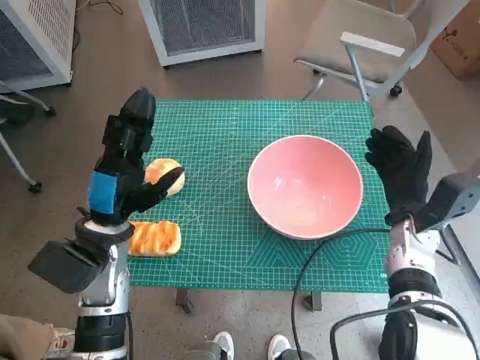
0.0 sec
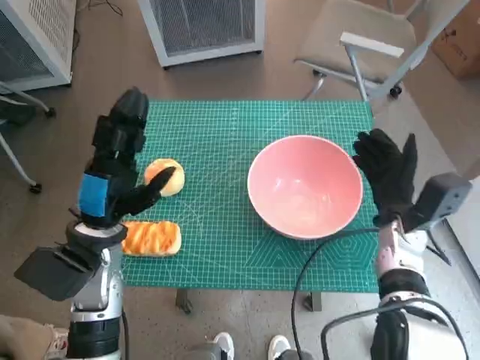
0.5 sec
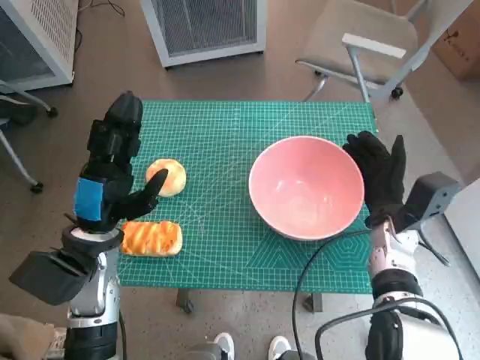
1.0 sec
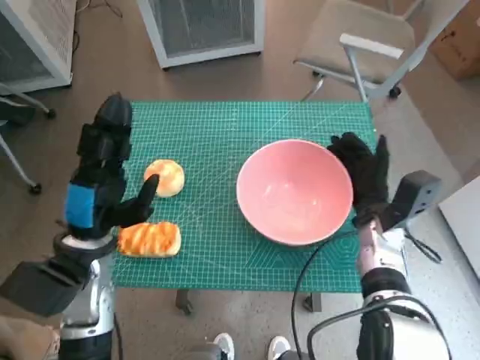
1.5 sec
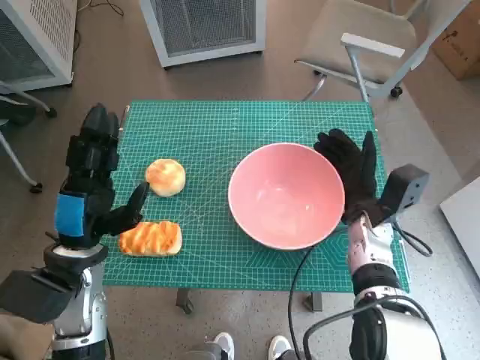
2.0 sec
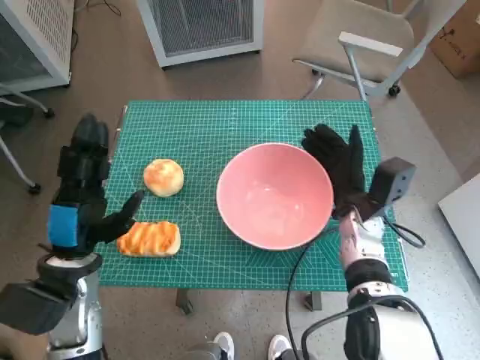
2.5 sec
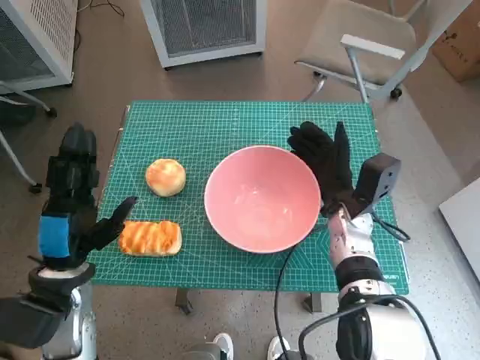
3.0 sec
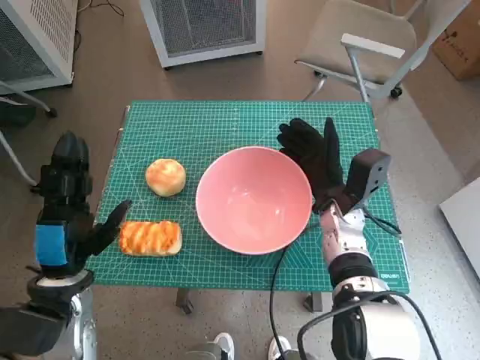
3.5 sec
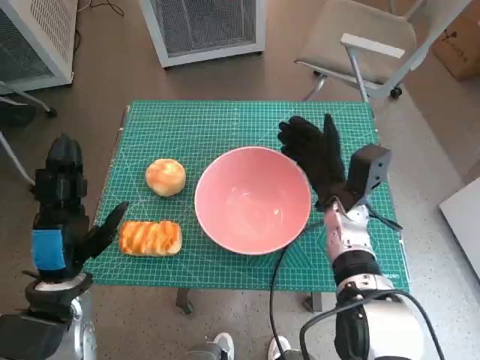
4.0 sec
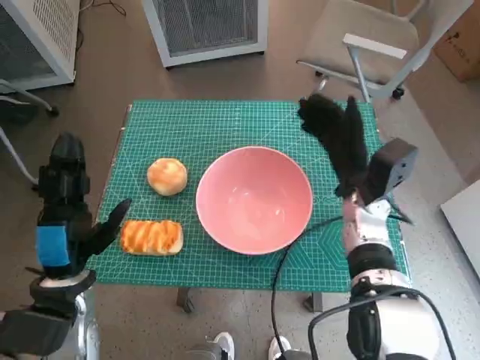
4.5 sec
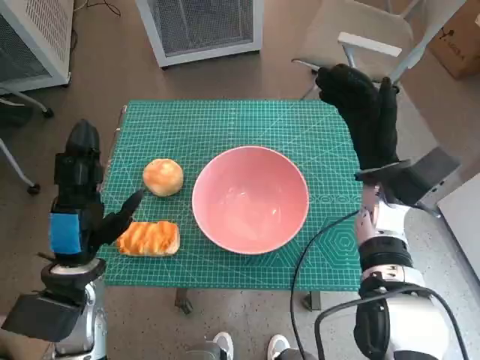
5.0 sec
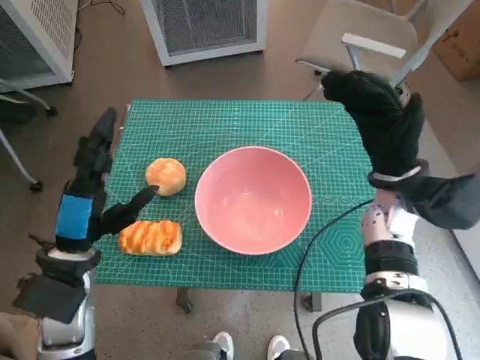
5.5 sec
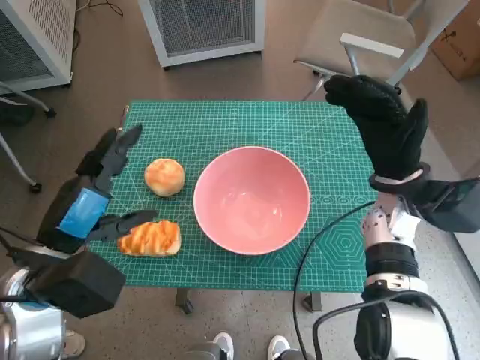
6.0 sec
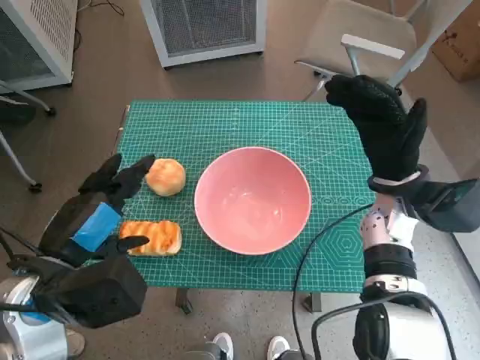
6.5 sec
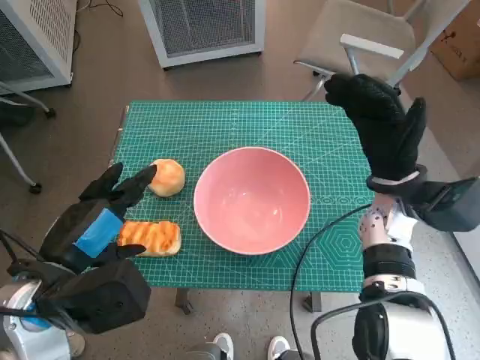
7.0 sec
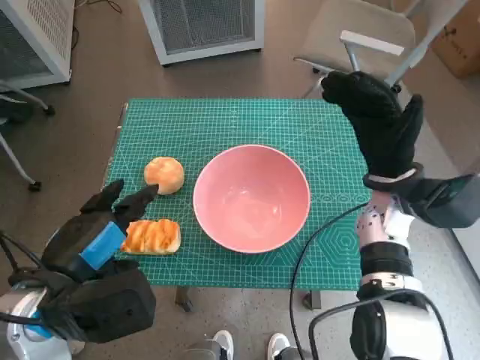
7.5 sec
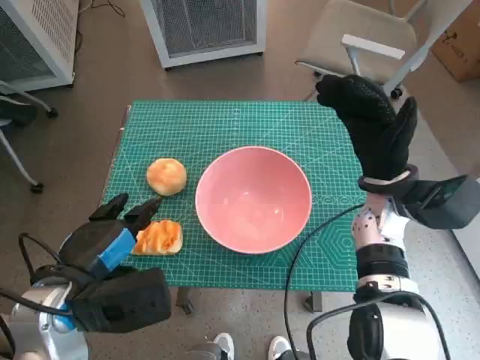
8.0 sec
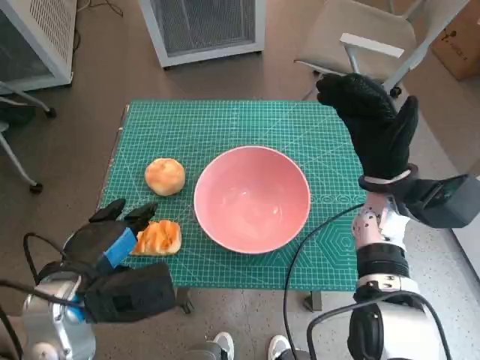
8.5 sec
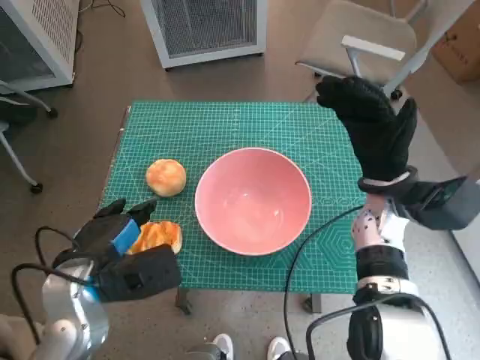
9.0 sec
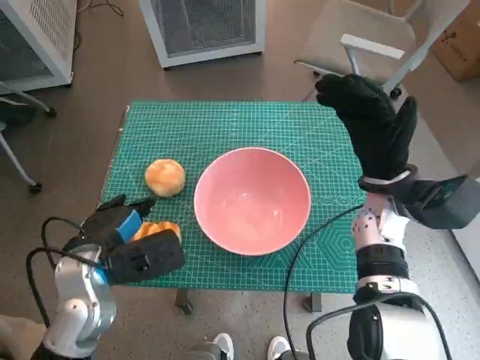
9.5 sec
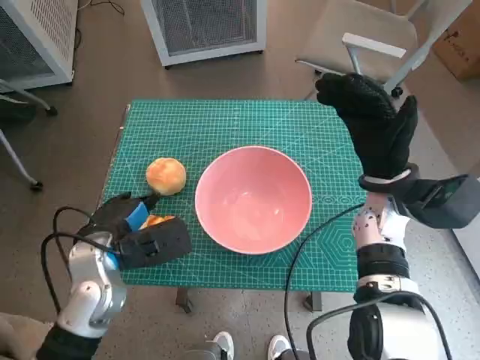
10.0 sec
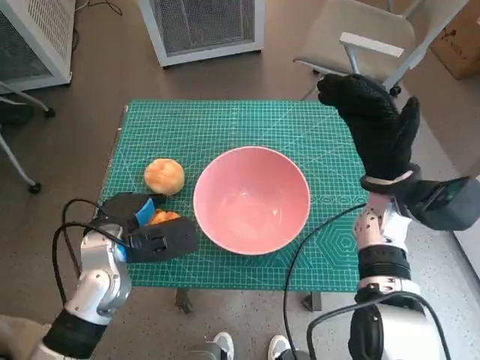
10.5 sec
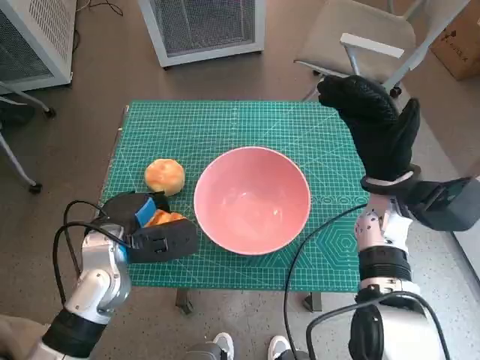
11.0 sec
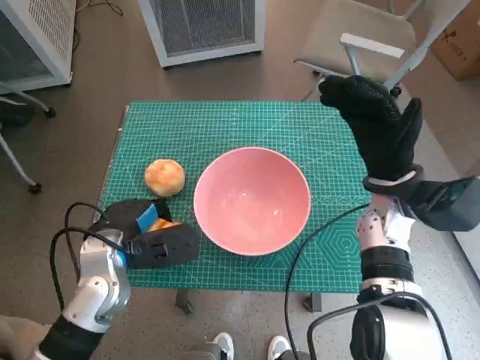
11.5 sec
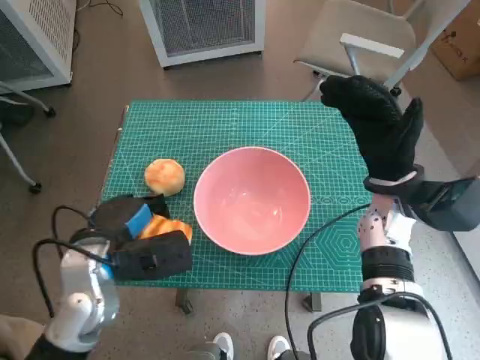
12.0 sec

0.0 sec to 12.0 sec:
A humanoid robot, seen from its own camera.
Step, 0.0 sec to 4.0 sec: Move the pink bowl to the center of table with right hand.
Step, 4.5 sec to 10.5 sec: Grasp the long bread with left hand.
0.0 sec to 2.0 sec: The right hand goes some 5 cm to the left.
2.0 sec to 4.0 sec: The right hand moves approximately 5 cm.
4.0 sec to 6.0 sec: The right hand shifts some 10 cm to the right and upward, while the left hand heads upward, covering some 5 cm.
8.0 sec to 10.0 sec: The left hand goes approximately 10 cm forward and downward.
10.0 sec to 12.0 sec: The hands make only small movements.

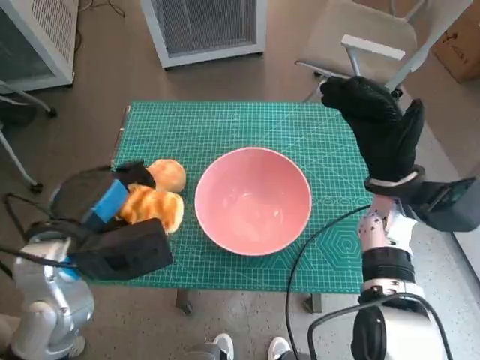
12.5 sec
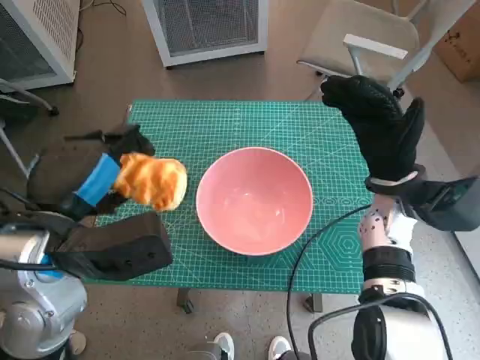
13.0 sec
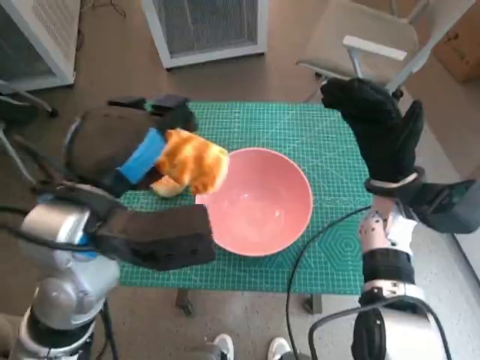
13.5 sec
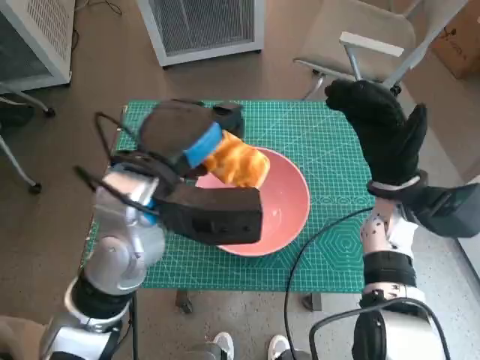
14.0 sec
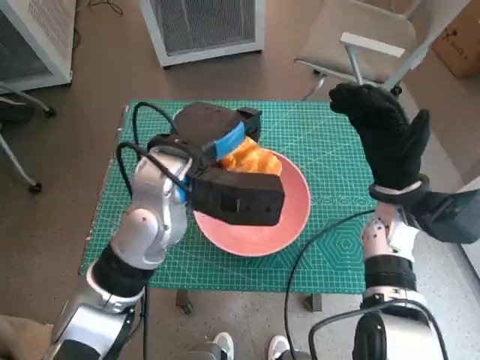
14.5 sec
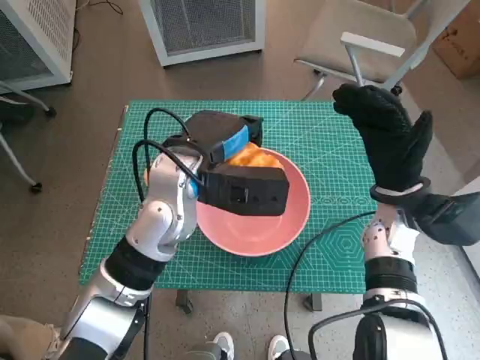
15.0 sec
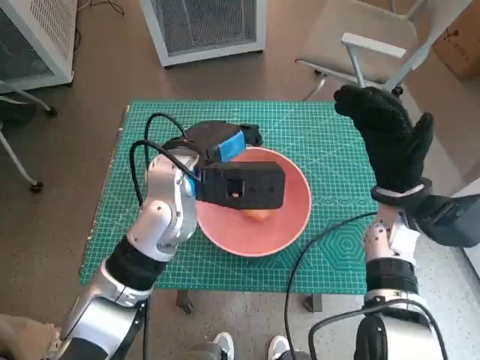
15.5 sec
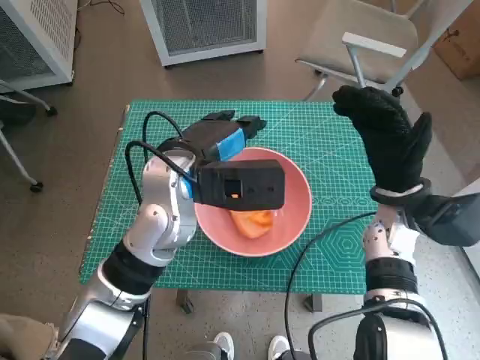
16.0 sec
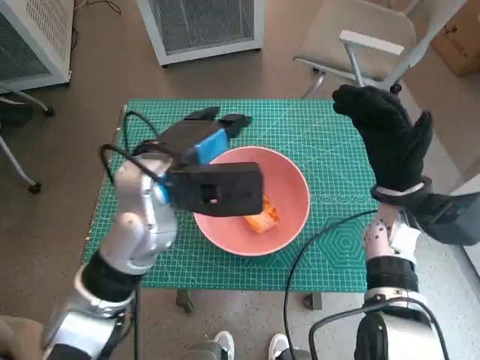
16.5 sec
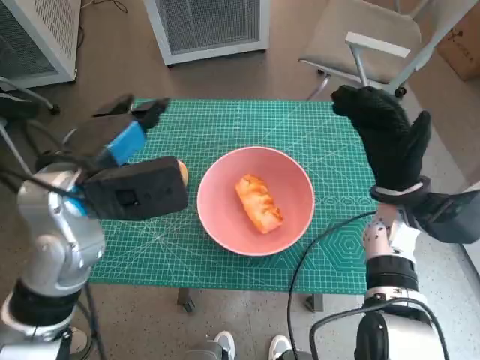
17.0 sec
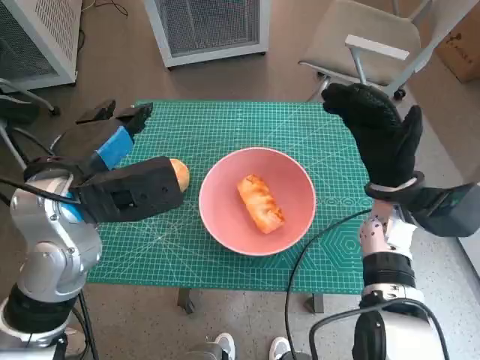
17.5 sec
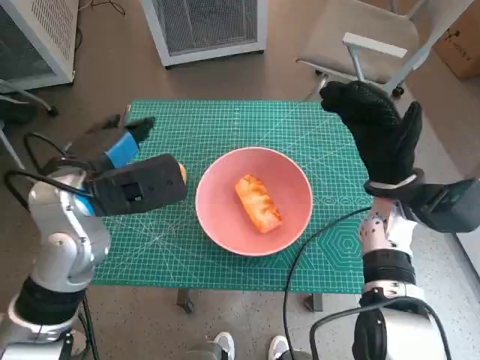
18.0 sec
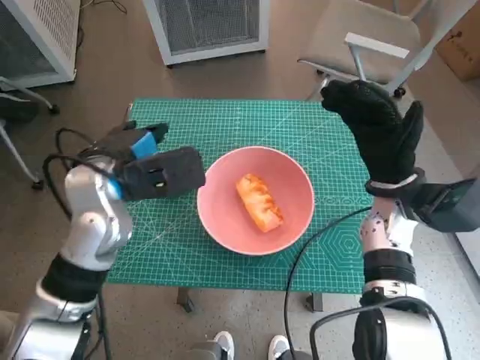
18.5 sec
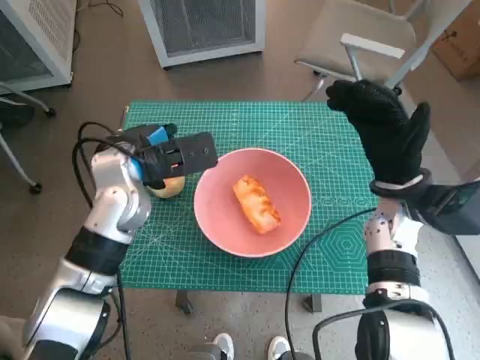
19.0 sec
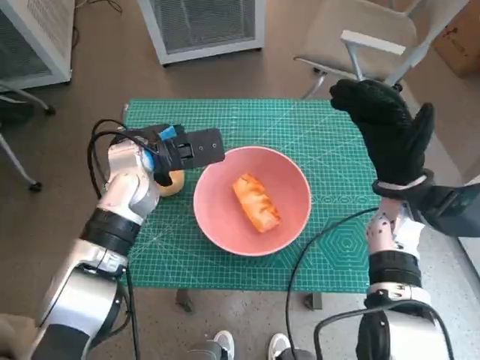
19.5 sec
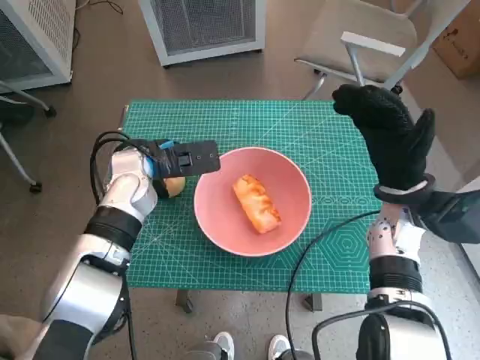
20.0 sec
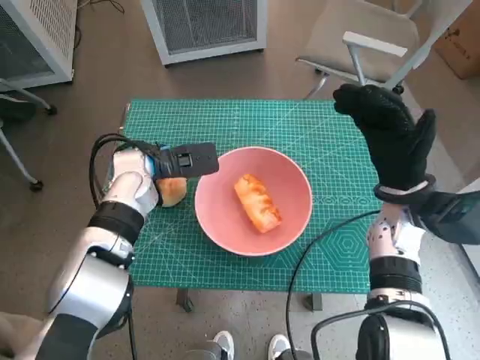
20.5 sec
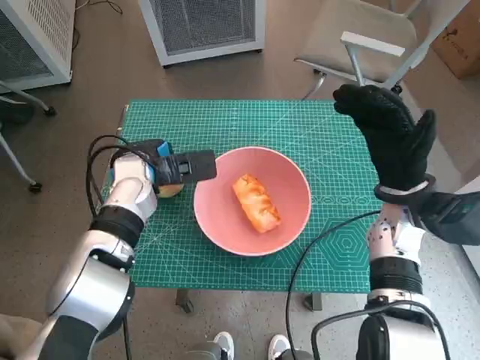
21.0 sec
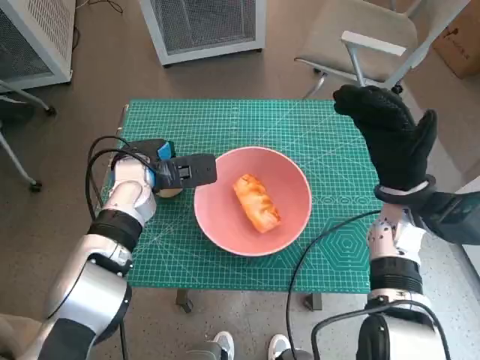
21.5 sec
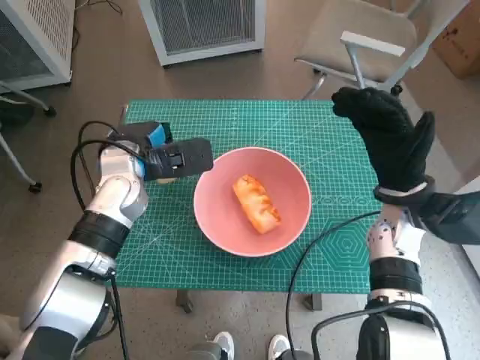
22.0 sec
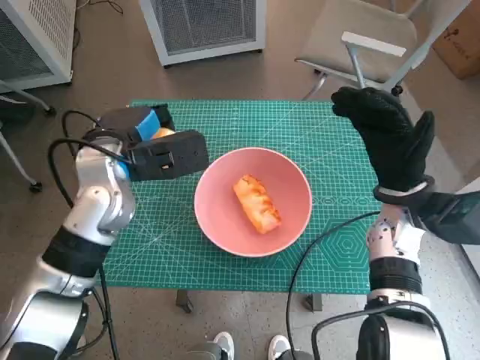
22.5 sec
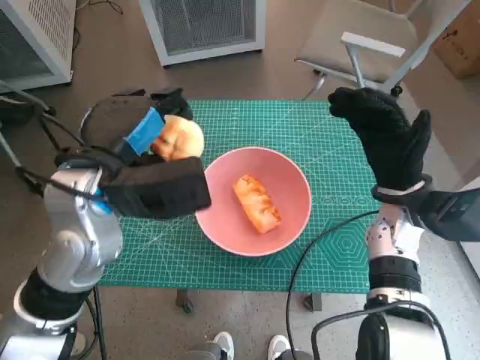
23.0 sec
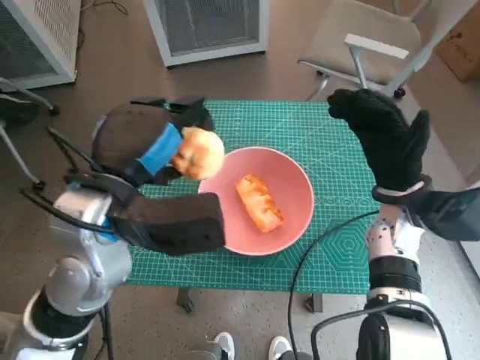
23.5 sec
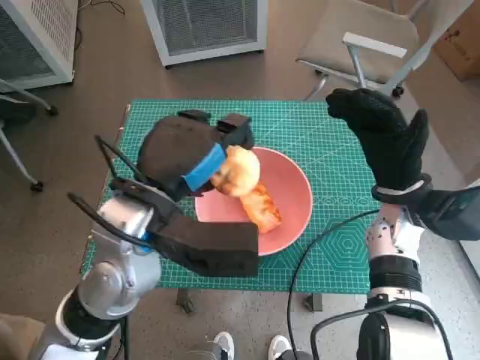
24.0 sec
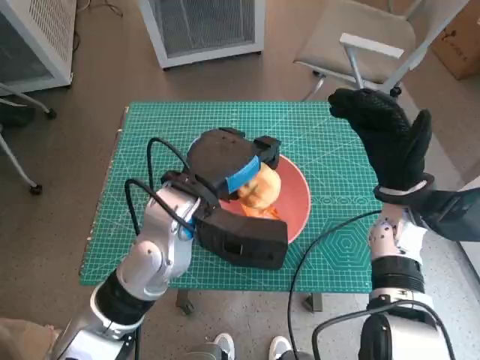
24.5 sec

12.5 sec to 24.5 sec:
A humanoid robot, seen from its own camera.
Step, 12.5 sec to 15.5 sec: Place the long bread in pink bowl with left hand.
Step, 16.0 sec to 21.0 sec: Grasp the round bread with left hand.
12.5 sec to 14.5 sec: The left hand travels to the right and forward by roughly 15 cm.
14.5 sec to 16.5 sec: The hands stay close to where they were, moving slightly.
16.5 sec to 18.5 sec: The left hand travels to the left by approximately 5 cm.
18.5 sec to 20.5 sec: The left hand is displaced forward and downward by roughly 10 cm.
20.5 sec to 22.5 sec: The left hand travels upward by some 5 cm.
22.5 sec to 24.5 sec: The left hand moves to the right and backward, about 10 cm.

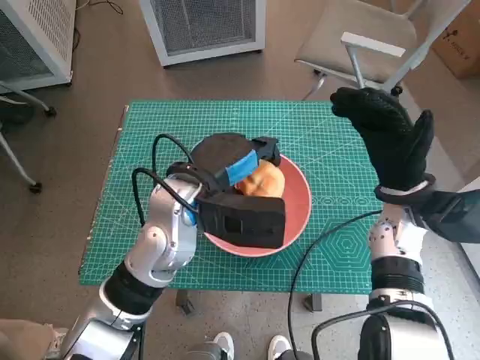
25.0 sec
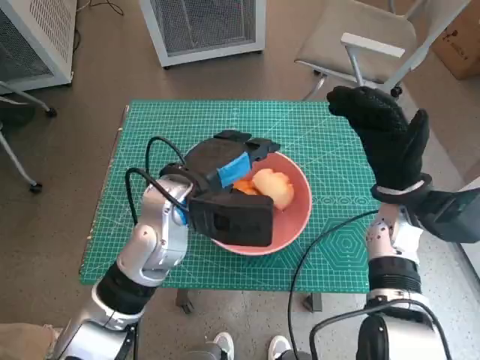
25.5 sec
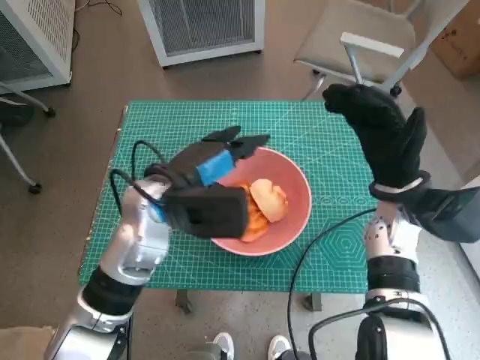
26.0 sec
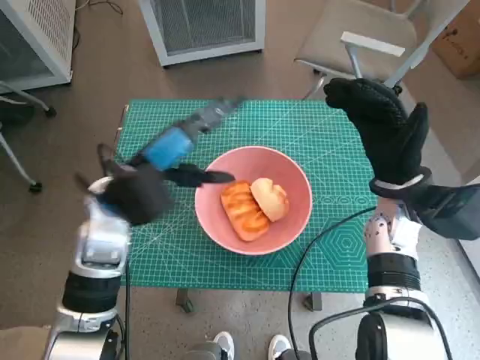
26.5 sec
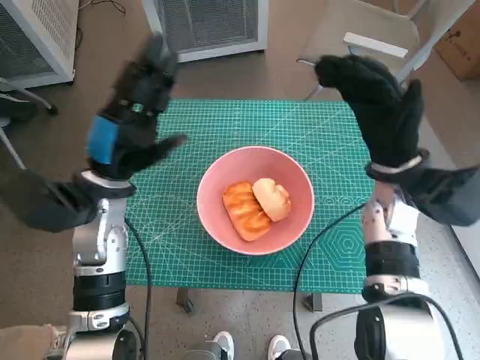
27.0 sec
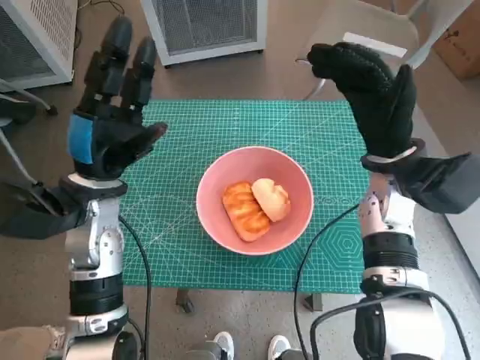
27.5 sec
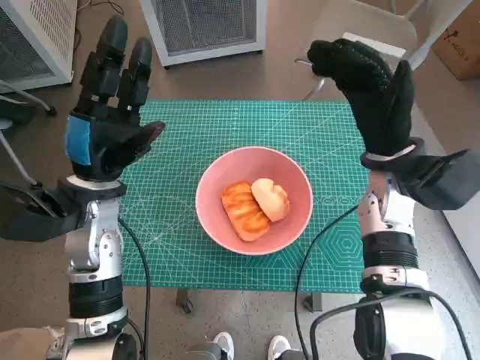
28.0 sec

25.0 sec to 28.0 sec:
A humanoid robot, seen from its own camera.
25.0 sec to 26.5 sec: The left hand moves to the left, about 10 cm.
